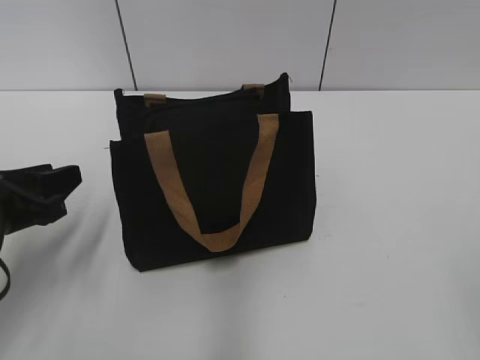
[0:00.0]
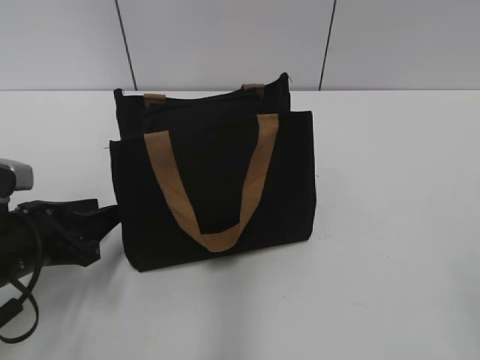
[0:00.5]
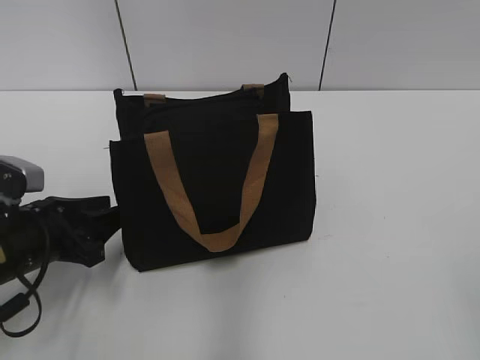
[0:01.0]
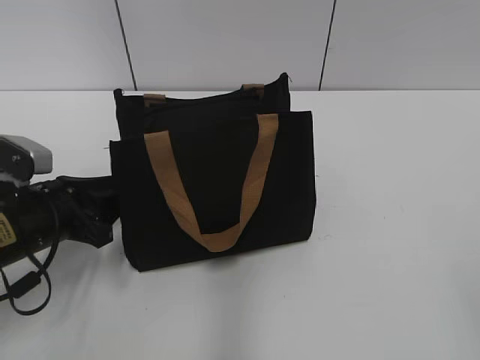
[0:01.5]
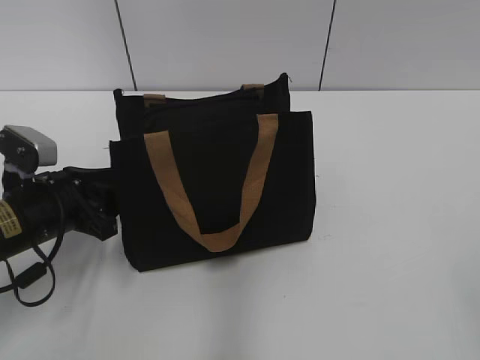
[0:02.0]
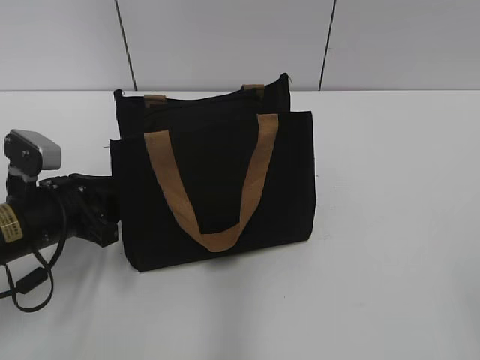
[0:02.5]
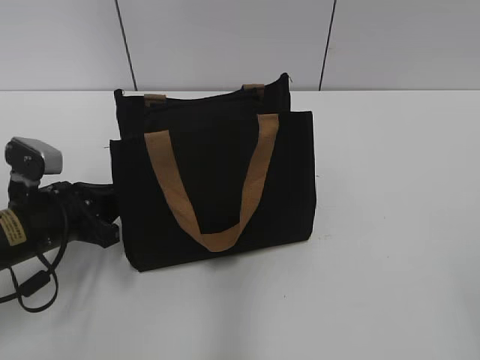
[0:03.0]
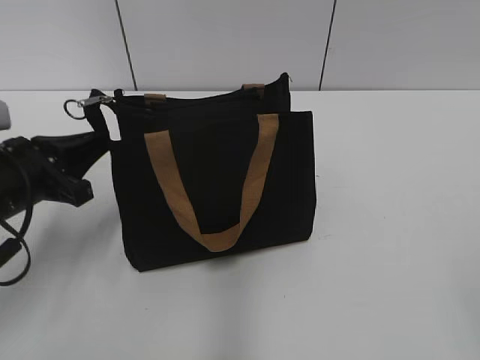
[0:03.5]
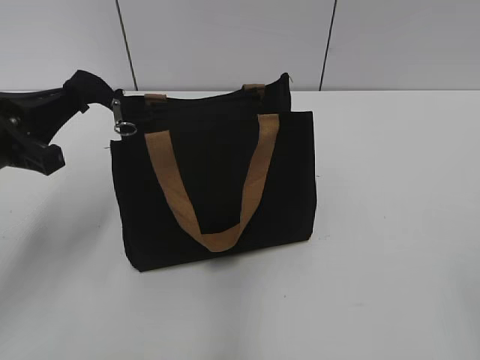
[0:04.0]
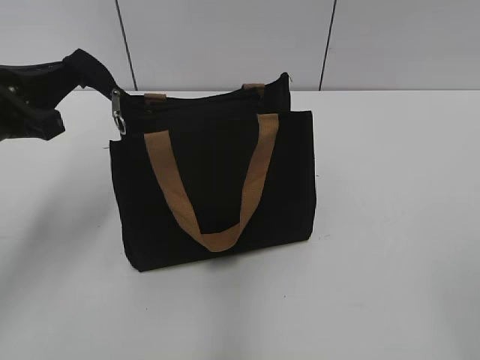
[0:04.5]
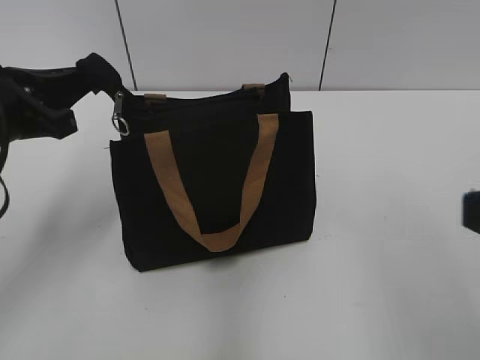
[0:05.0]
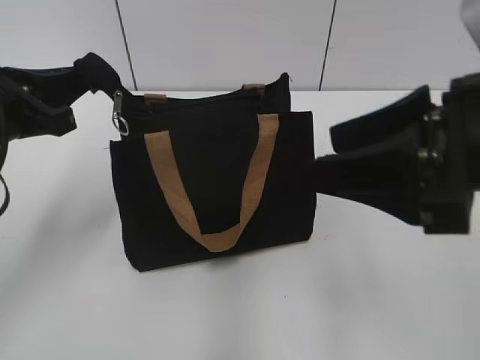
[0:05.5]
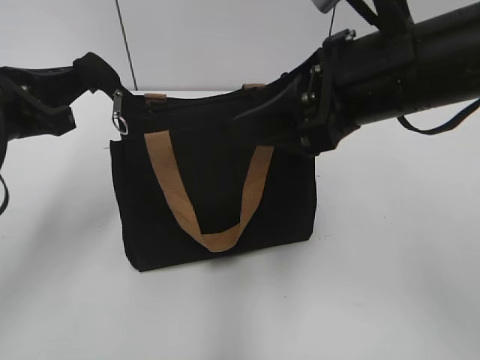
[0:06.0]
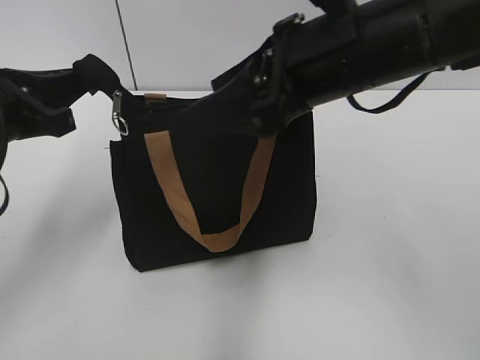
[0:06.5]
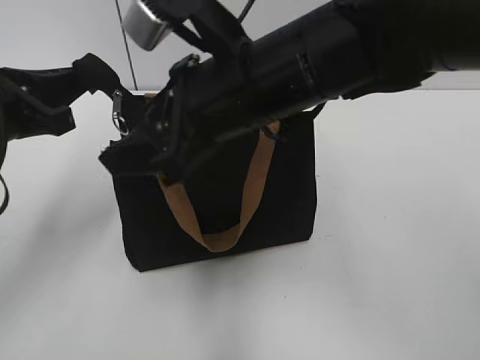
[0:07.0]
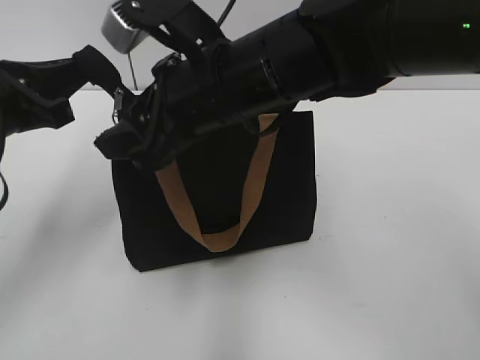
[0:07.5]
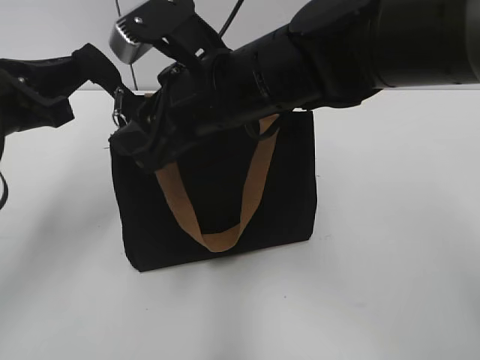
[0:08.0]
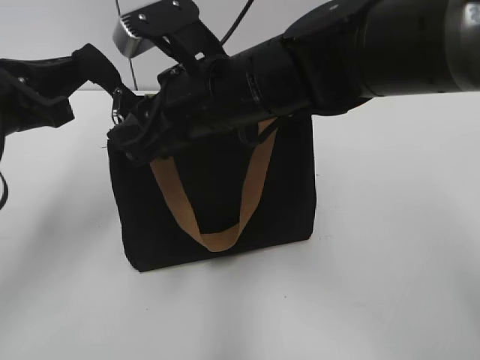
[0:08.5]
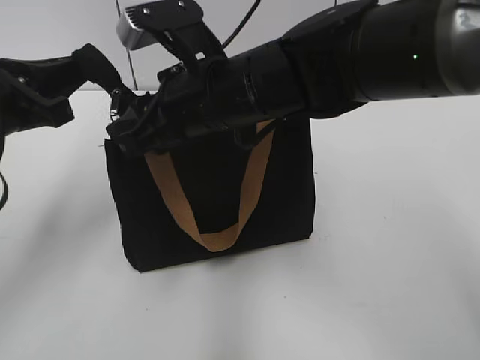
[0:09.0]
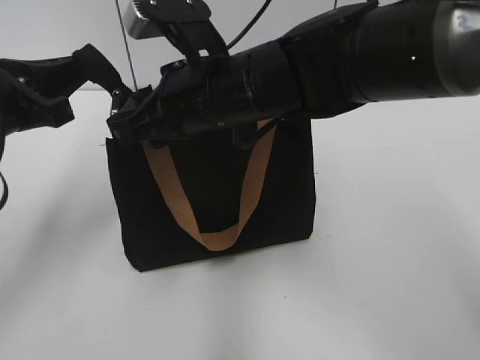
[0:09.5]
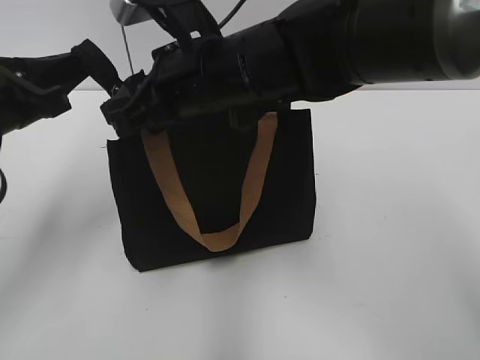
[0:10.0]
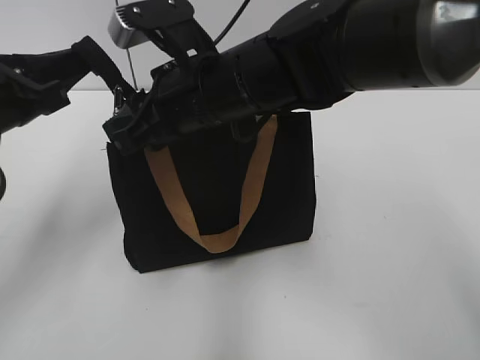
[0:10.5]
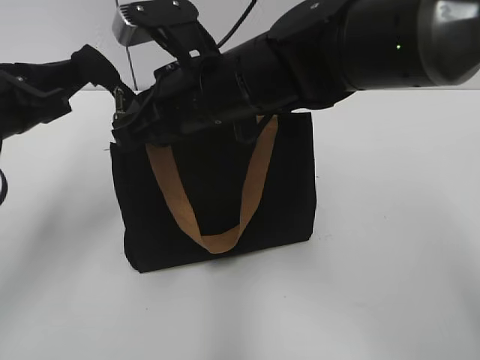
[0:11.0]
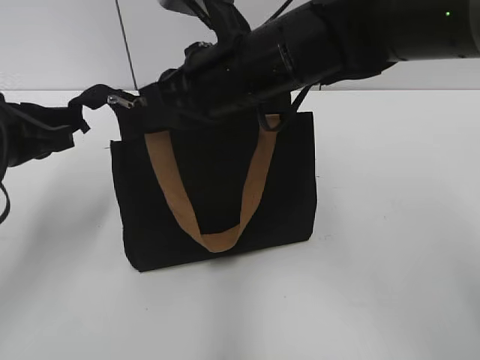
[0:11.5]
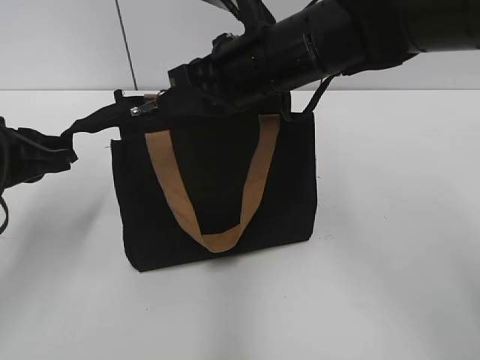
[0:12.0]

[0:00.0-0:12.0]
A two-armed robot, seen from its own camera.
0:00.0 to 0:02.0: The left gripper shifts by about 5 cm.
0:02.0 to 0:04.0: The left gripper heads upward, covering approximately 10 cm, and closes its fingers.
0:04.0 to 0:06.0: The right gripper travels forward and to the left by about 30 cm.
0:06.0 to 0:08.0: The right gripper moves to the left, some 10 cm.
0:08.0 to 0:10.0: There are only small adjustments of the grippers.
0:10.0 to 0:12.0: The right gripper shifts by roughly 5 cm, and closes up.

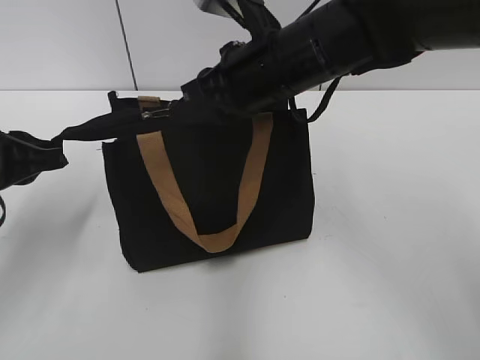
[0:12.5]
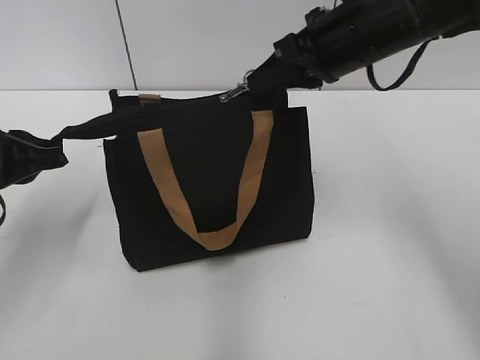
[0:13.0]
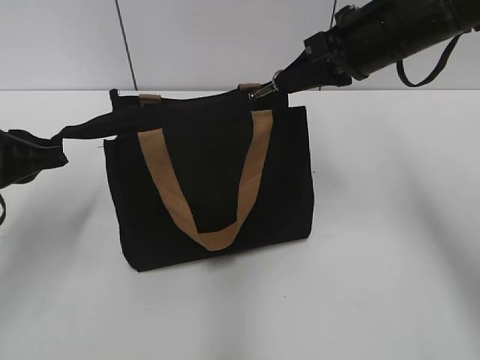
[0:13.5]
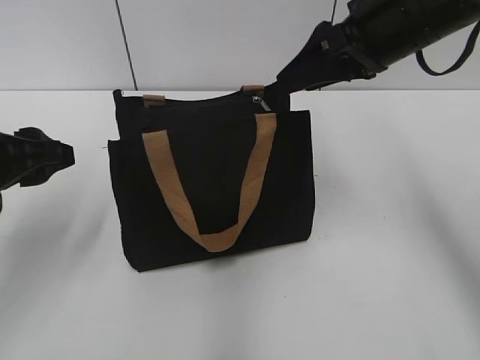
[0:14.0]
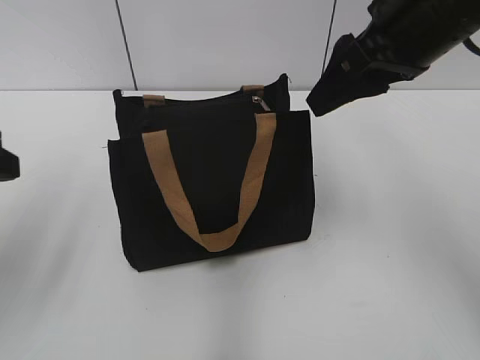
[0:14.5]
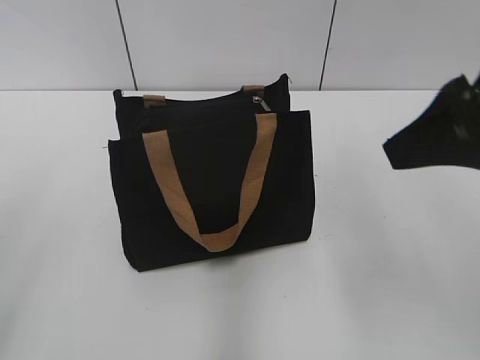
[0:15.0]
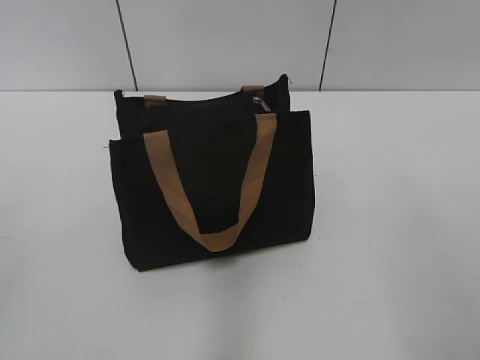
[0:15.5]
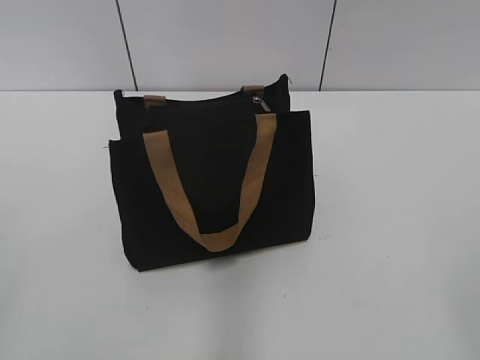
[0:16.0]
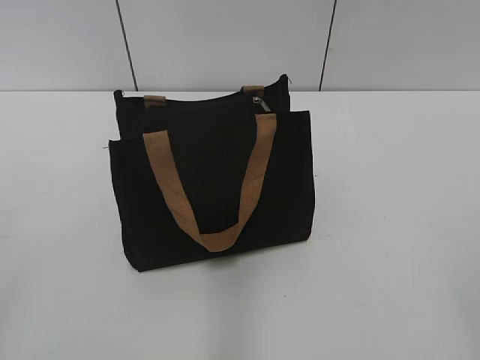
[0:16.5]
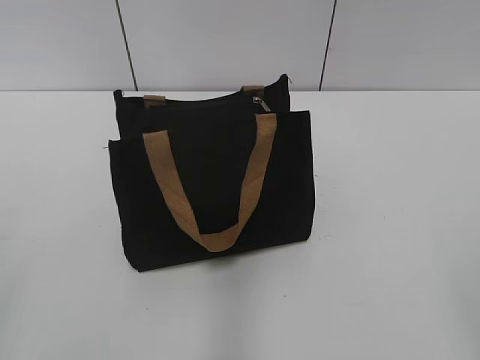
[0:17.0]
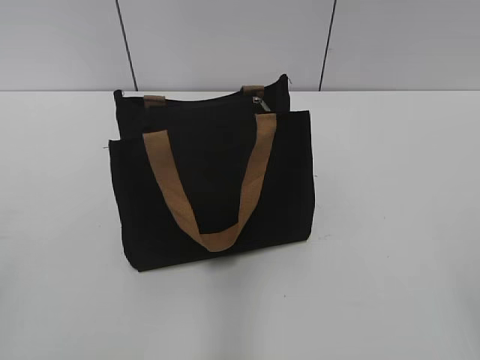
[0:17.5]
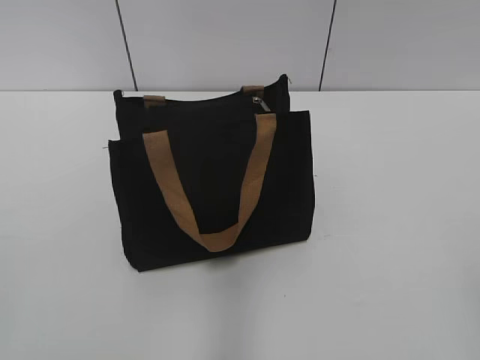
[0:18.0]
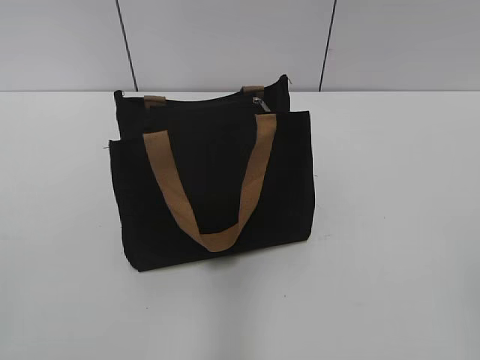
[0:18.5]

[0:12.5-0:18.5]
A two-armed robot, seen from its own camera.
0:12.5 to 0:14.5: The left gripper goes roughly 10 cm upward and backward, and opens up. Meanwhile the right gripper goes approximately 15 cm to the right and upward, and opens.
0:14.5 to 0:16.5: The left gripper heads backward, covering roughly 20 cm; the right gripper travels backward and to the right by approximately 35 cm.
